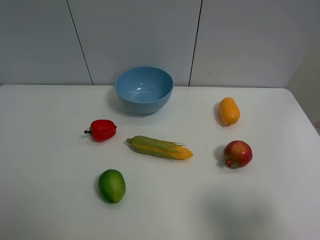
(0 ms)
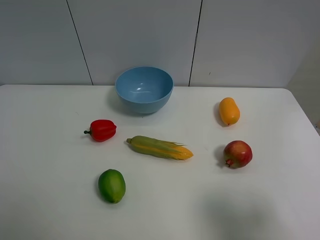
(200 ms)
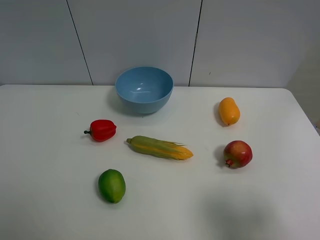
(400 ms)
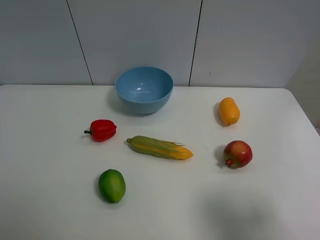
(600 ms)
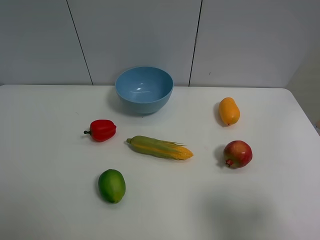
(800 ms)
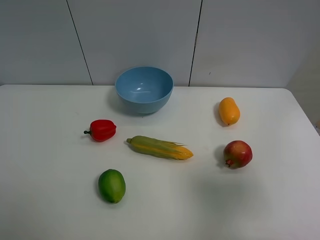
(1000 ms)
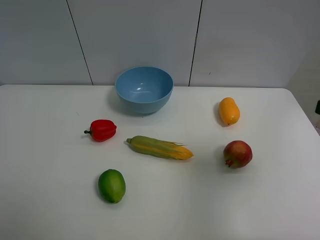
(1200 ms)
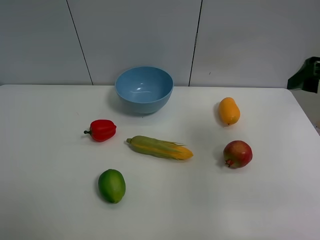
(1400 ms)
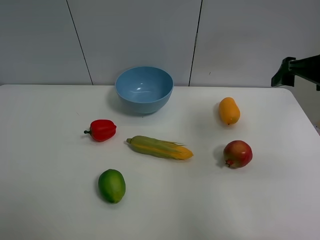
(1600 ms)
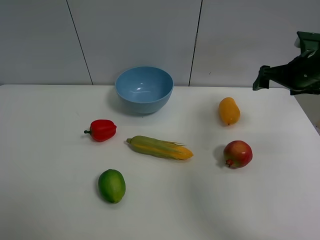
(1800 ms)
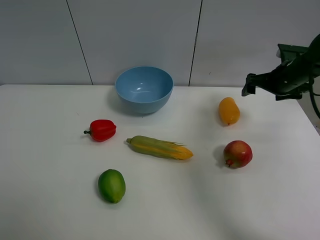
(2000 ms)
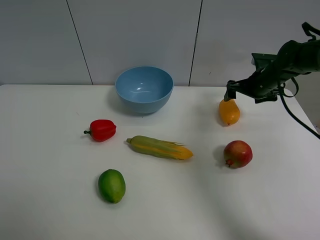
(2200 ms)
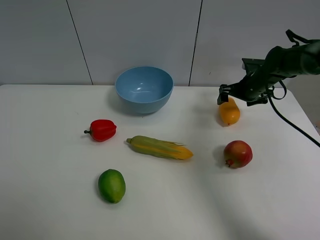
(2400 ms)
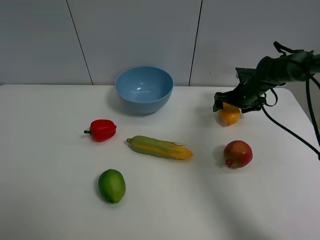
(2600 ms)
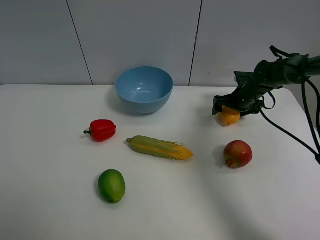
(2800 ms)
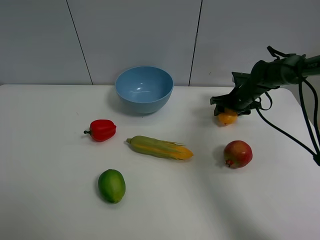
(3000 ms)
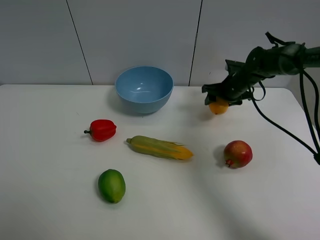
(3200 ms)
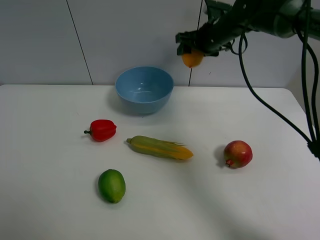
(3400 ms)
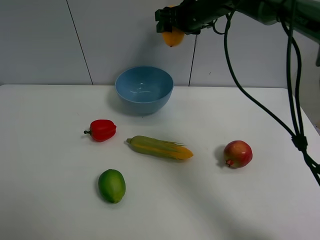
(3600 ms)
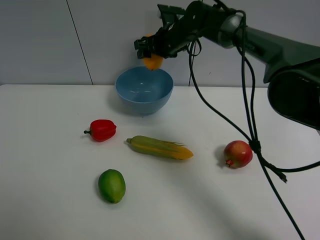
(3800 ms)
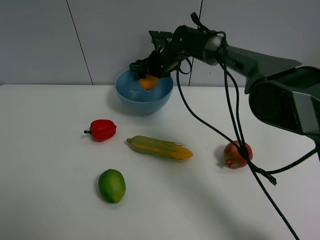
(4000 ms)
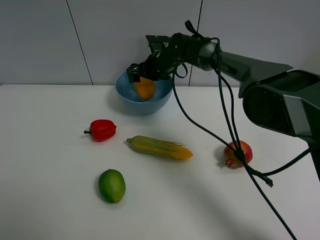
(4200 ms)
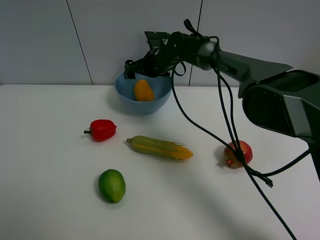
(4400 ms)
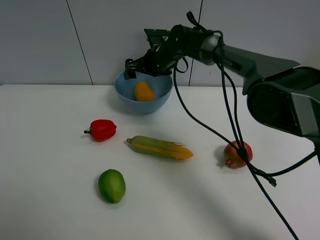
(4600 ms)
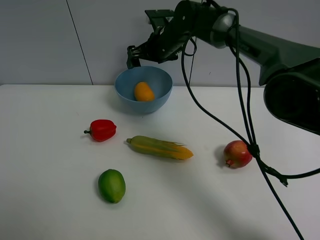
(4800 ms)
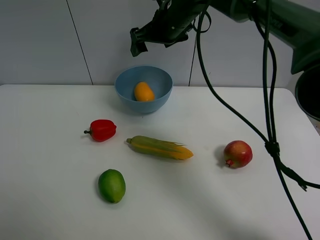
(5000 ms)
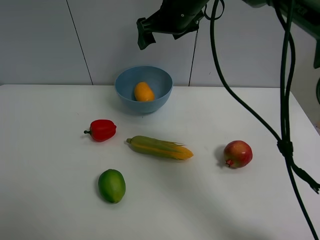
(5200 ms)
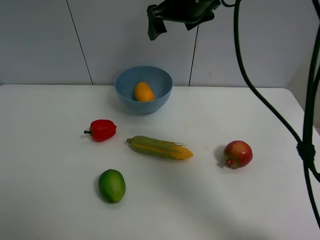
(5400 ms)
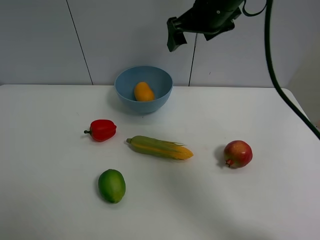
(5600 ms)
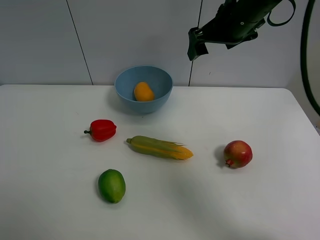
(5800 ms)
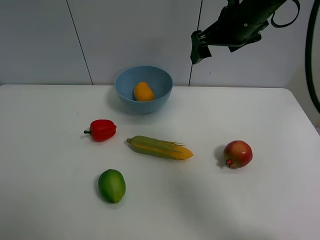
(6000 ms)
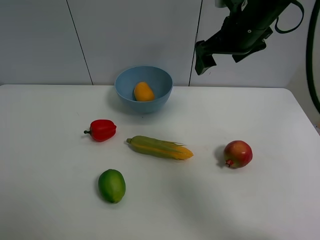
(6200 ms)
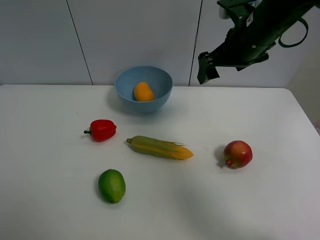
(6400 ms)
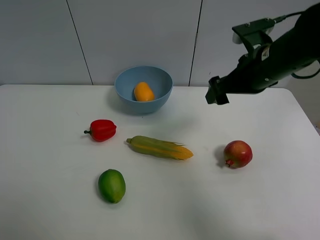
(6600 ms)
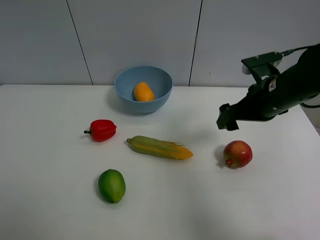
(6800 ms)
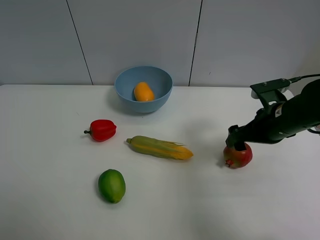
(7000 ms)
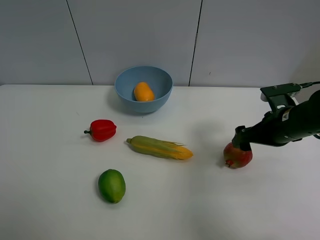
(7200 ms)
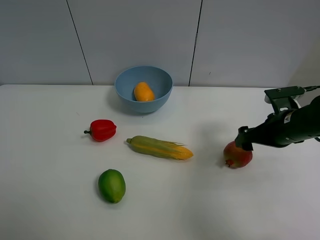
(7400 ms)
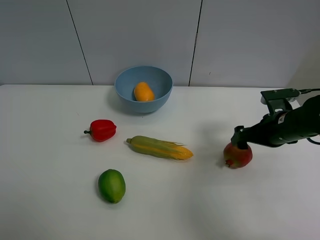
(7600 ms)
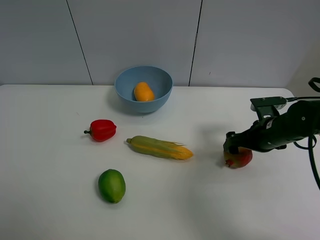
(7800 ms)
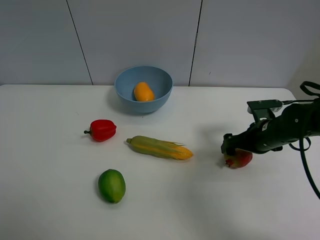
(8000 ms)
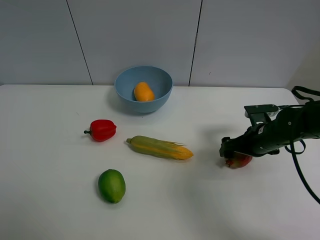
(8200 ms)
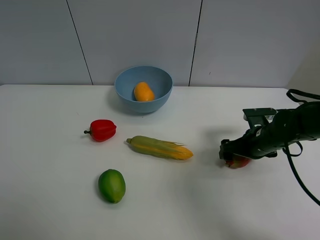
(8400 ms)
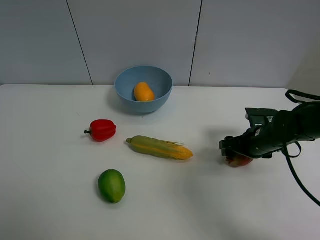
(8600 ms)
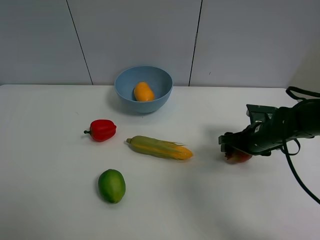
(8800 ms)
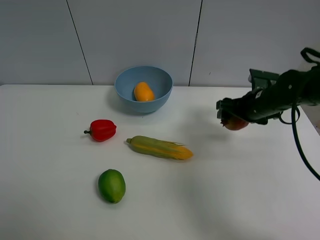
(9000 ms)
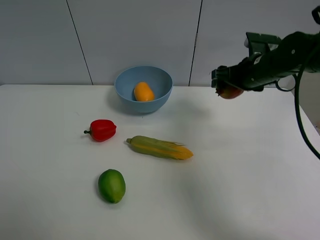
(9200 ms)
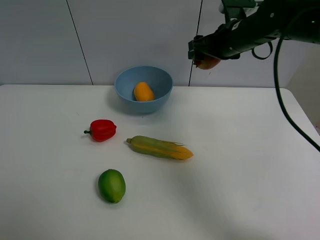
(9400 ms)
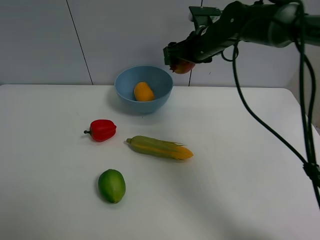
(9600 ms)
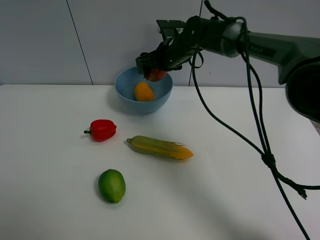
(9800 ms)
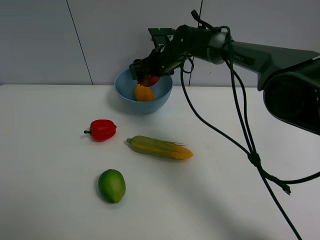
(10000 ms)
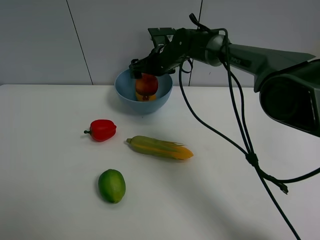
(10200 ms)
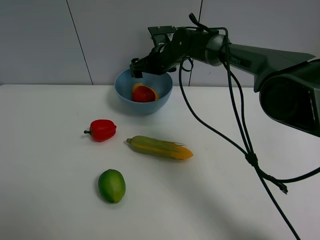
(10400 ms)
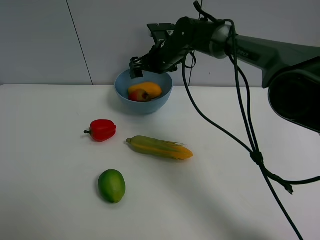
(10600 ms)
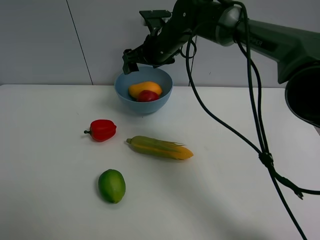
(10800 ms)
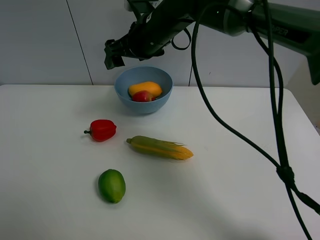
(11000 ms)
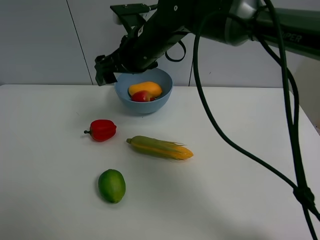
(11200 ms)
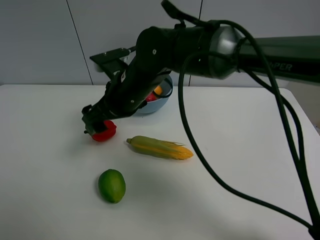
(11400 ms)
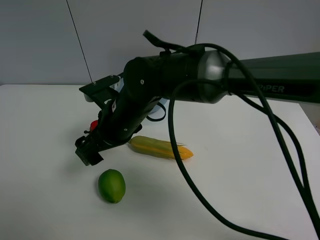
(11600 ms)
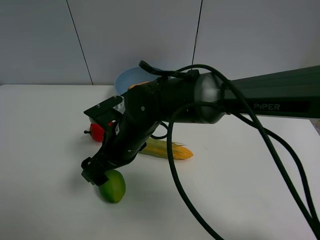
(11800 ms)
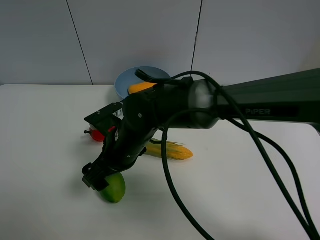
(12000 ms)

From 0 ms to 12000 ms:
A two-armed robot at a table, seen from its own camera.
Task of the whole recording: Put the three fruits on the table into a bowl.
Step, from 0 ms to 3000 ms: Grasp the mango with right gripper.
Step, from 3200 ms to 4400 ms: Place the mango in the blue bowl with right gripper.
Step, from 4600 ms to 8600 ms: Grasp the pomegranate with right gripper.
Step, from 8800 ms to 10400 ms: Place the pomegranate in the blue bowl with right gripper.
From 0 ms to 1600 ms: The right gripper shifts about 30 cm forward.
From 1600 ms to 3000 ms: The right gripper goes some 25 cm downward and forward, and closes its fingers.
From 3000 ms to 4400 ms: The right gripper is displaced to the left by some 25 cm, and opens up.
From 4400 ms to 6000 ms: The right gripper shifts approximately 25 cm upward, backward and to the right.
From 6000 ms to 7600 ms: The right gripper travels downward, to the right and backward by about 25 cm.
From 7600 ms to 9000 ms: The right gripper moves forward, some 5 cm, goes downward and returns, roughly 5 cm each way, and closes up.
From 9000 ms to 10400 ms: The right gripper heads to the left and forward, covering approximately 25 cm, and opens its fingers.
From 10400 ms to 12000 ms: The right gripper moves backward, about 25 cm.

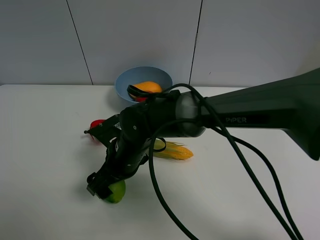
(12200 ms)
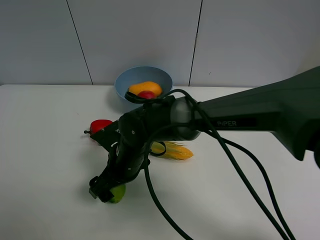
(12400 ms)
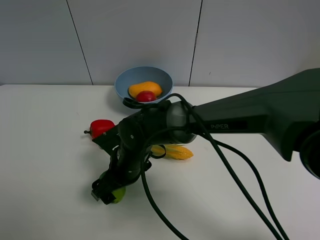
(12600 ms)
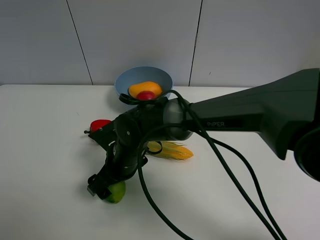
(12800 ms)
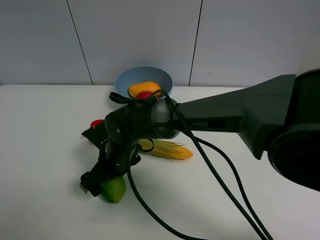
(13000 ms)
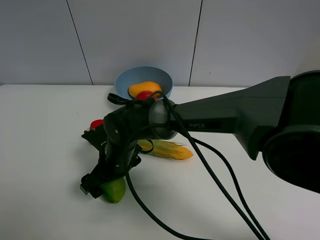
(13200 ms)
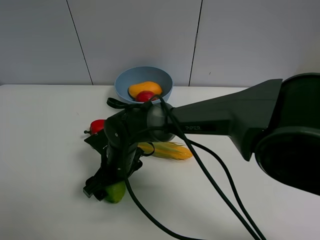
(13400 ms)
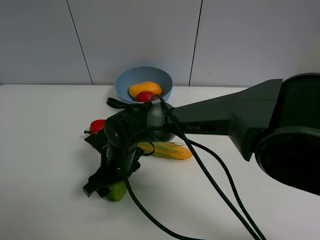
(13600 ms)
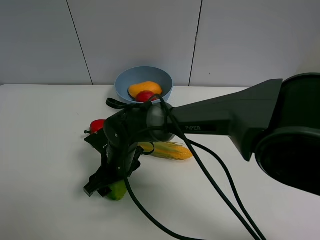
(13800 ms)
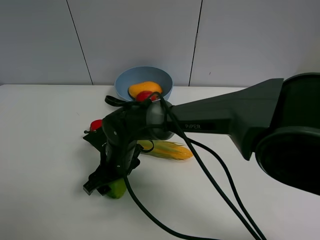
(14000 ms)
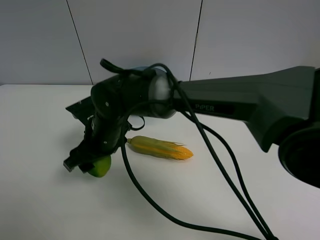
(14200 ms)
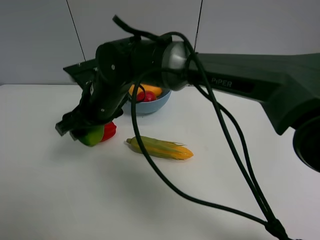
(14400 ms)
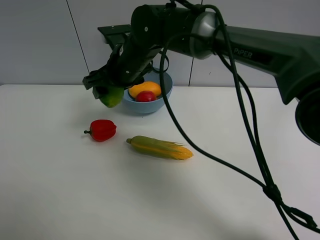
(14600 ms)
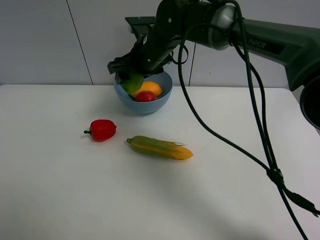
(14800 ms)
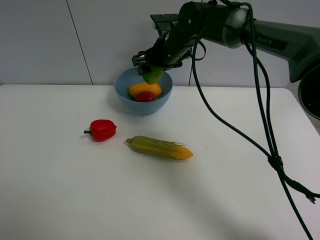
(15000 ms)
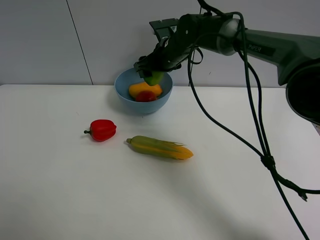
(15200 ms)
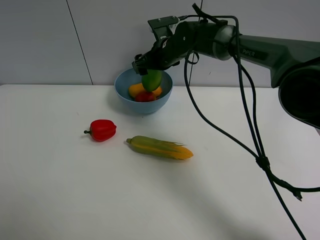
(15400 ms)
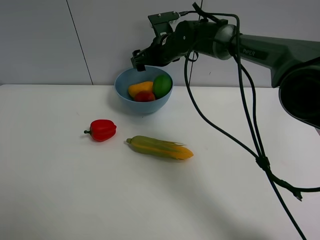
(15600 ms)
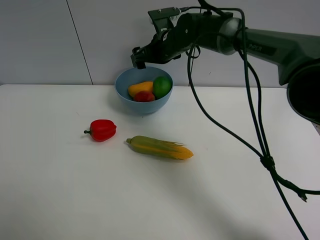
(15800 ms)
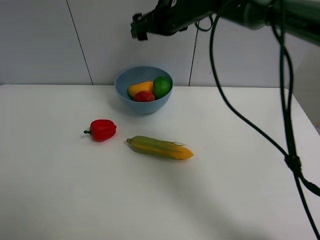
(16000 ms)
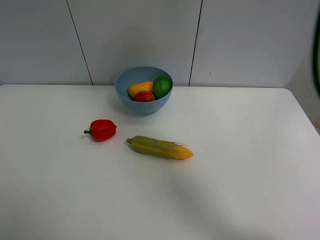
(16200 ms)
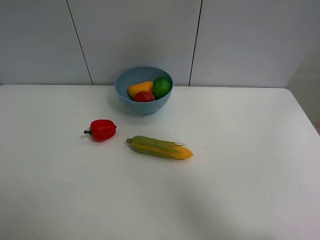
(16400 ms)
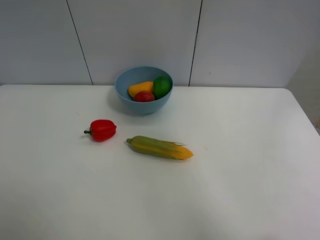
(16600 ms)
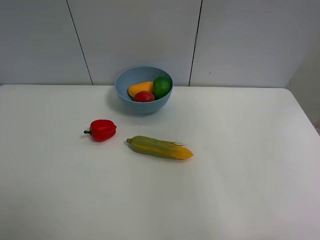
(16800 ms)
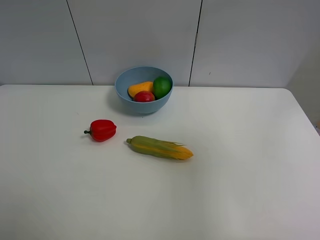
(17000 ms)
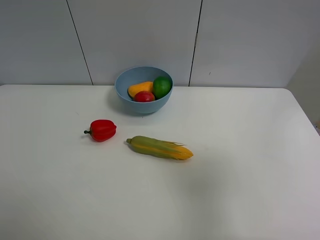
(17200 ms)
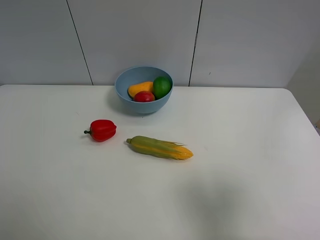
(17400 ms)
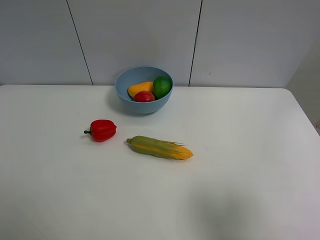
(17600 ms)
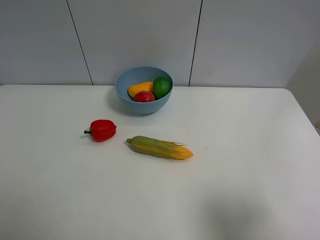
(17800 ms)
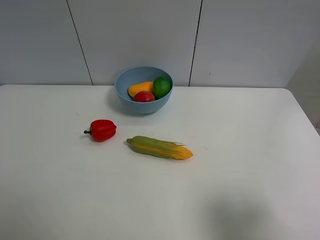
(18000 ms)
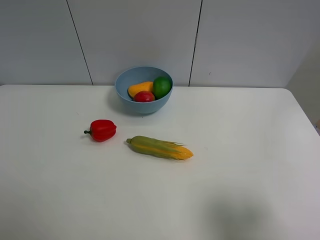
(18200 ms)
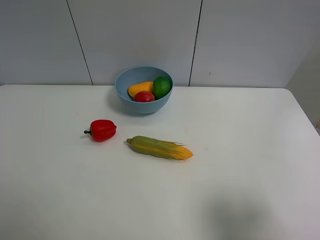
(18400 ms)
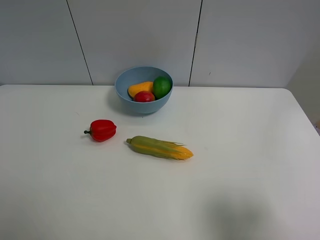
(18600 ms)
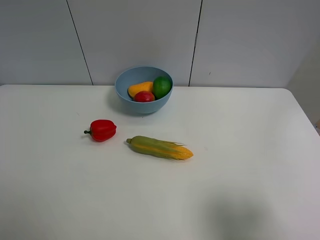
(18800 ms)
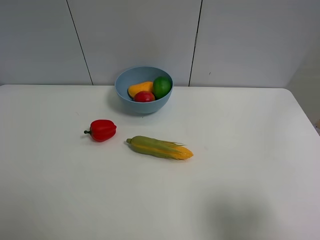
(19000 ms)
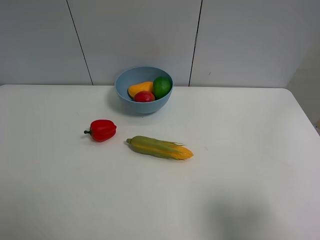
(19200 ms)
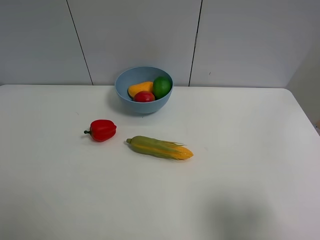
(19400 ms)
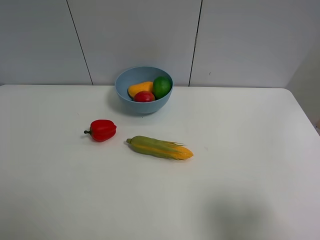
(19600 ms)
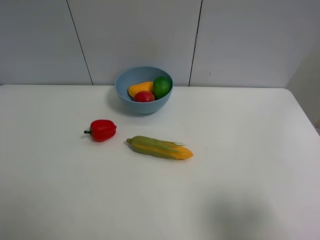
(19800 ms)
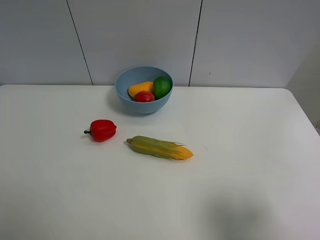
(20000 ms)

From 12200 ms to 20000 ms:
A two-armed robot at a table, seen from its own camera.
Task of the whole recording: Put the three fruits on the table into a bowl.
Step, from 13800 ms to 15600 ms: Place the green lemon in the blue bowl with right gripper.
From 12200 ms to 13800 ms: The right gripper closes.
From 13800 ms to 15400 ms: The right gripper travels forward, upward and to the right by some 30 cm, and opens.
From 15400 ms to 16800 ms: The right gripper is displaced backward, upward and to the right by roughly 50 cm.
From 16800 ms to 18400 ms: The right gripper moves downward and backward, about 30 cm.
From 18400 ms to 20000 ms: Neither gripper changes place.
